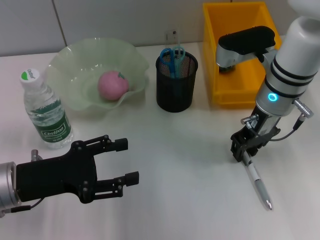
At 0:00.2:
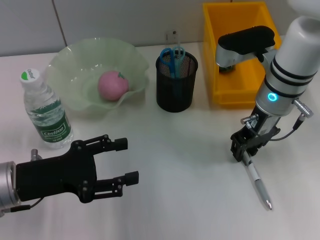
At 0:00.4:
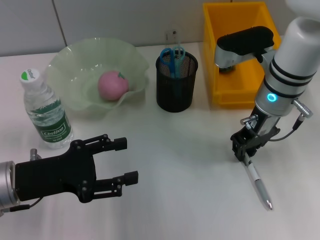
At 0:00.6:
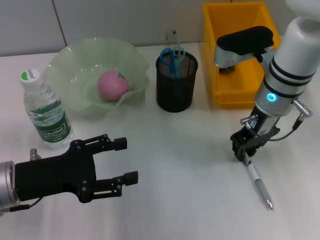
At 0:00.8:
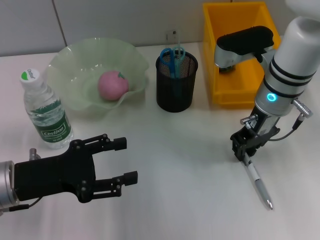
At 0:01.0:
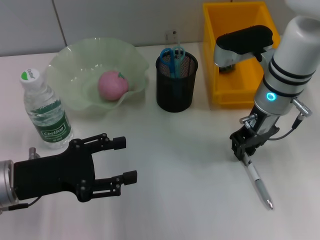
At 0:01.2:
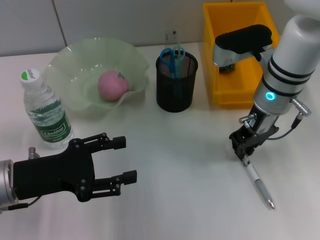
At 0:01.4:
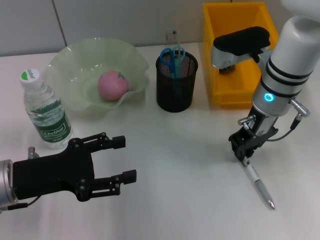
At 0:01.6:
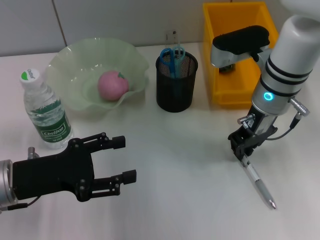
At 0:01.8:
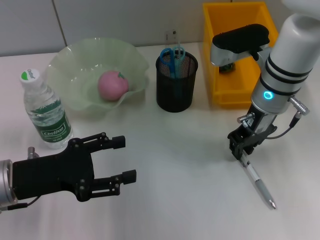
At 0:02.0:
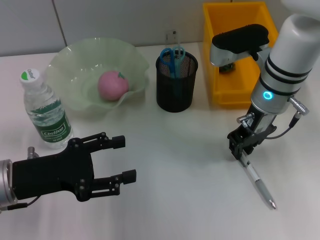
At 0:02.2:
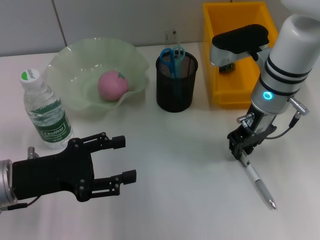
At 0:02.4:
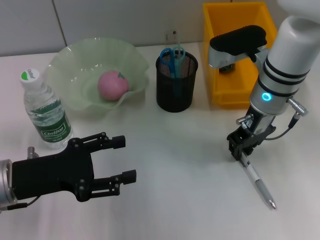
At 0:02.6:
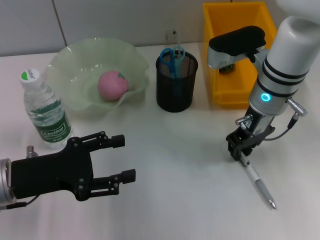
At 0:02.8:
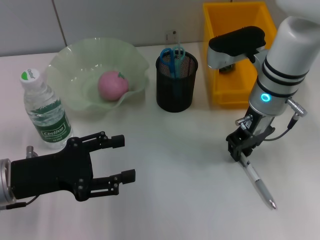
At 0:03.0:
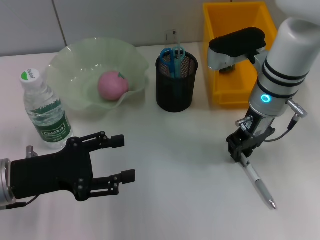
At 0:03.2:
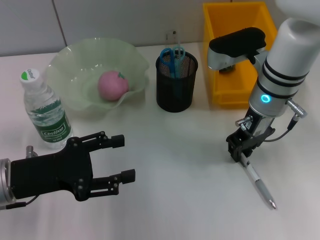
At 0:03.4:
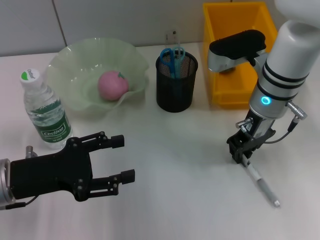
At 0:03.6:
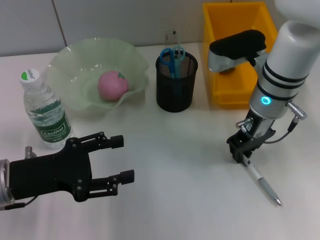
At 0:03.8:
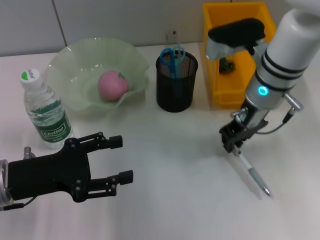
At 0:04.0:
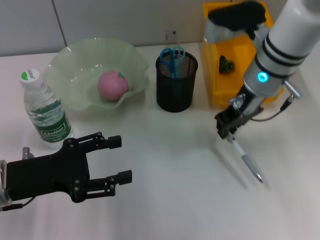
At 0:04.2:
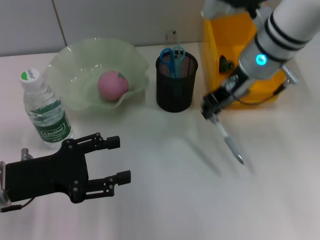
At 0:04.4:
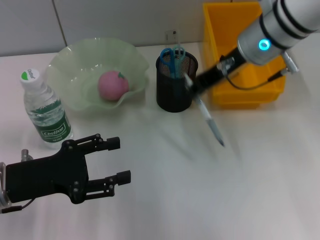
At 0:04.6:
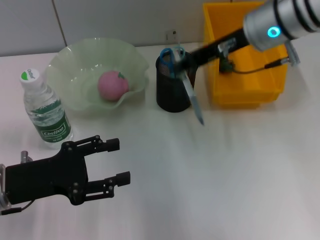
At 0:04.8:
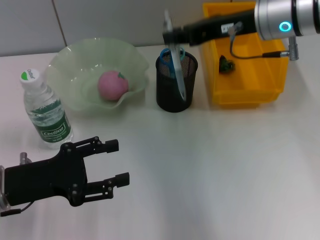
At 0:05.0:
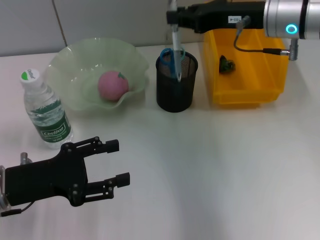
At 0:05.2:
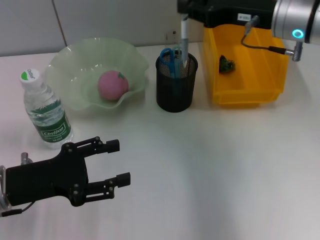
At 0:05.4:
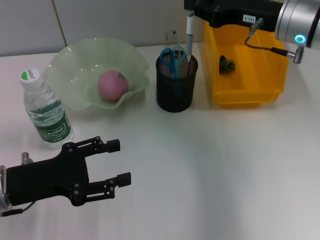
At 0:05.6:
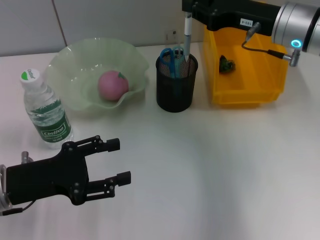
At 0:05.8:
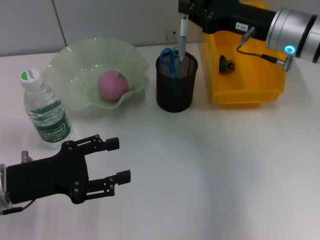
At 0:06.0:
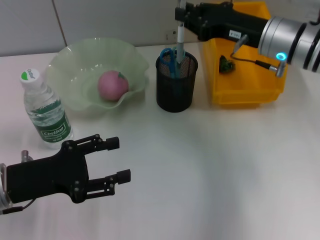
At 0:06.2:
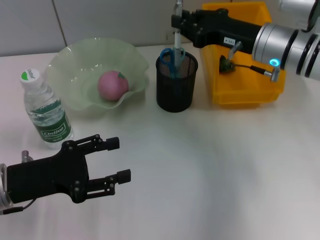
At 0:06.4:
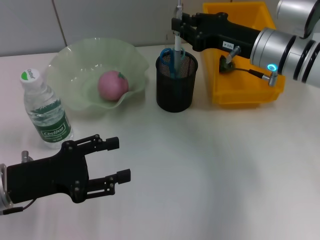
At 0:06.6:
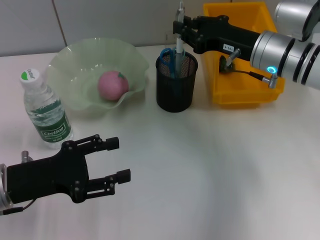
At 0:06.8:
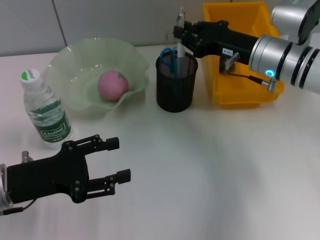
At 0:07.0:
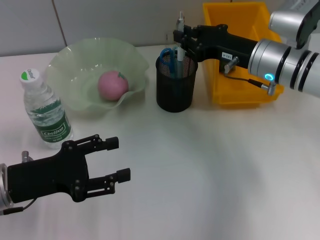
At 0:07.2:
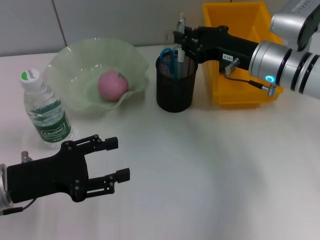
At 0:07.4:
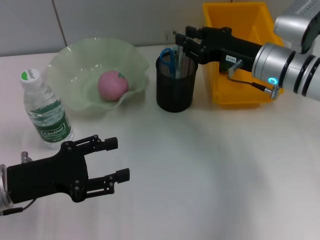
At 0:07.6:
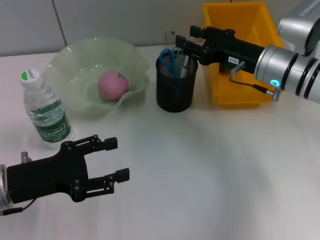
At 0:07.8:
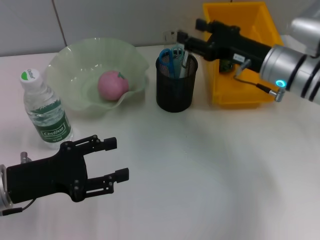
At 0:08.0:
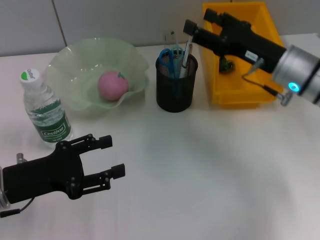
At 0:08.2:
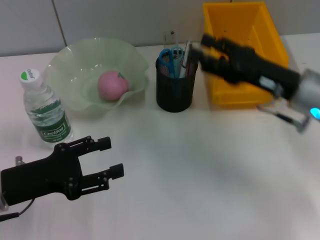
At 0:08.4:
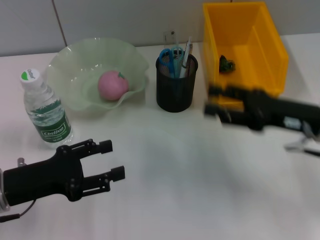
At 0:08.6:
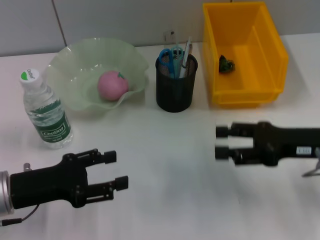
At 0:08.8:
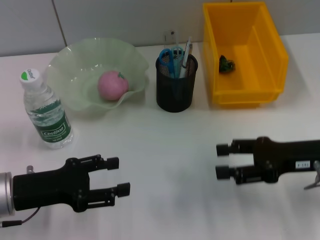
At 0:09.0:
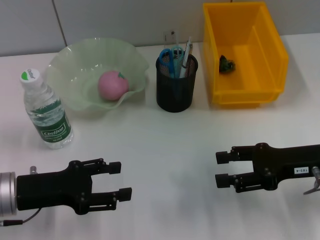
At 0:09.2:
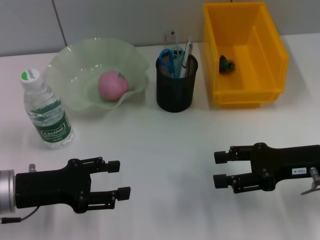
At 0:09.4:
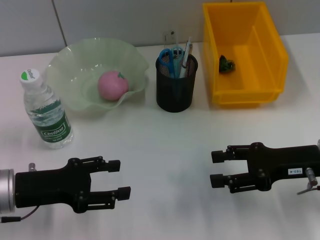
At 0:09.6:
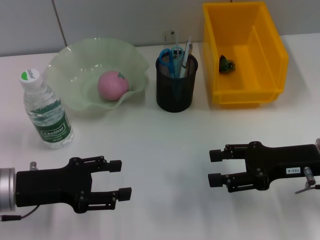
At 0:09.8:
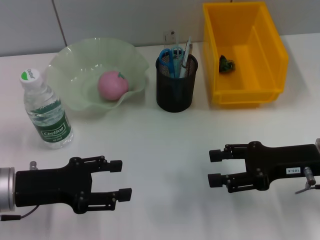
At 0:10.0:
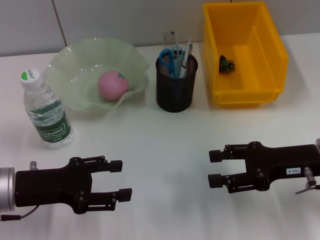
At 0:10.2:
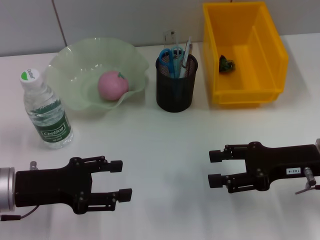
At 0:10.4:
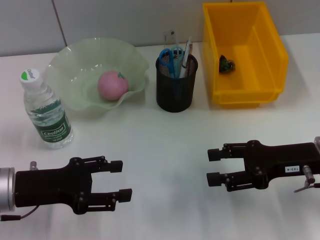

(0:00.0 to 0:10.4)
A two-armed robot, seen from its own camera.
Step, 0:00.0 - 0:03.2: Grab the gray spring-action pen with the right hand.
Step, 0:03.6 - 0:08.0: Place the gray spring-action pen into the pen holder with the right hand.
0:00.0 - 0:03.0: Both grippers stay about where they are.
0:03.0 - 0:04.4: The right gripper is displaced upward by roughly 10 cm.
0:04.4 - 0:06.0: The right gripper shifts some 10 cm downward and to the right.
0:06.0 - 0:07.4: There are only small adjustments of the grippers.
0:07.4 - 0:09.0: The right gripper heads backward and to the right, covering some 15 cm, and opens its fingers.
0:09.0 - 0:10.4: The two grippers keep their place.

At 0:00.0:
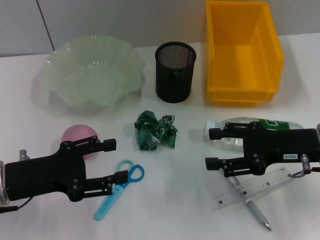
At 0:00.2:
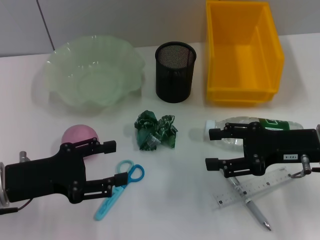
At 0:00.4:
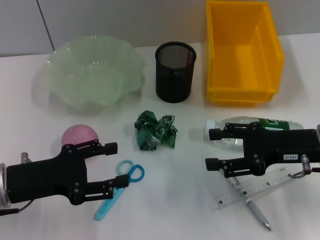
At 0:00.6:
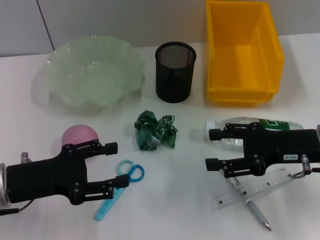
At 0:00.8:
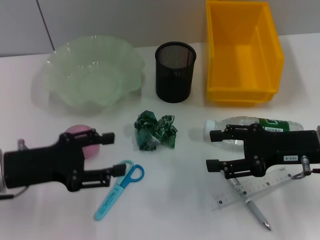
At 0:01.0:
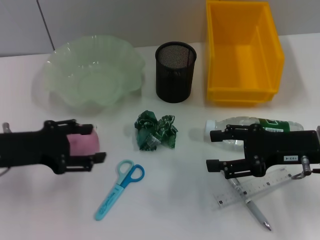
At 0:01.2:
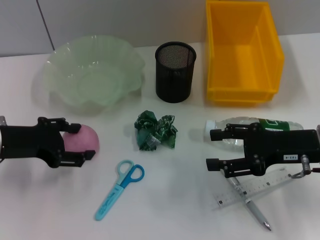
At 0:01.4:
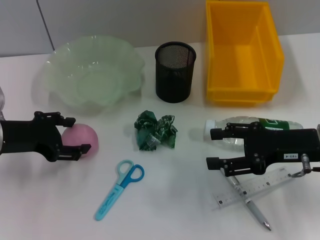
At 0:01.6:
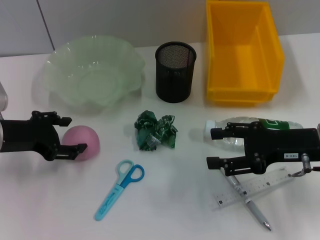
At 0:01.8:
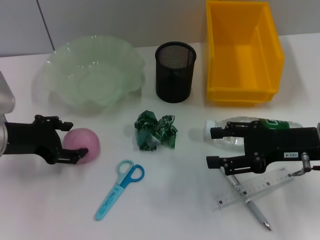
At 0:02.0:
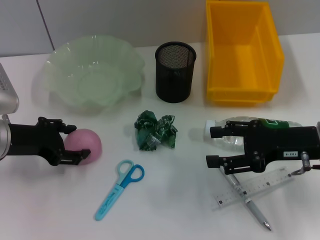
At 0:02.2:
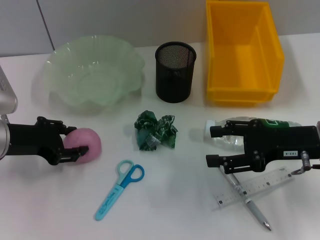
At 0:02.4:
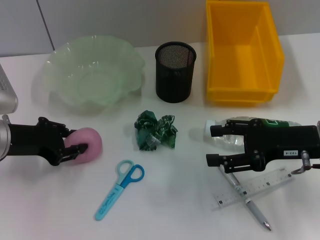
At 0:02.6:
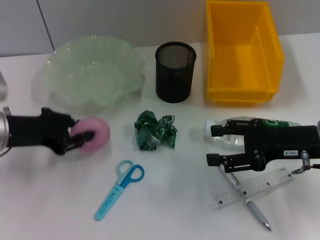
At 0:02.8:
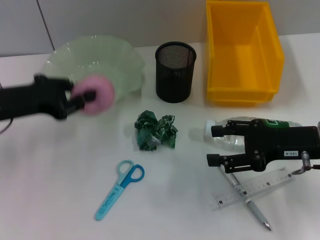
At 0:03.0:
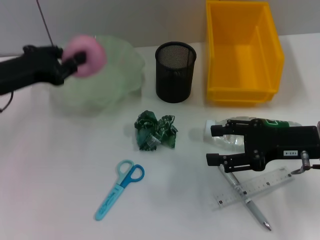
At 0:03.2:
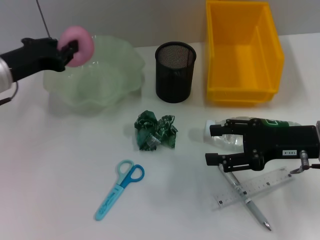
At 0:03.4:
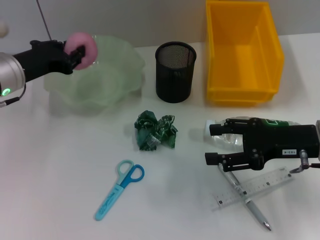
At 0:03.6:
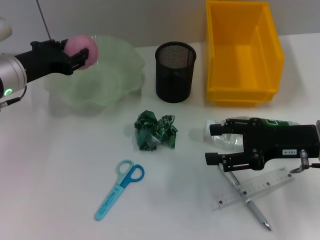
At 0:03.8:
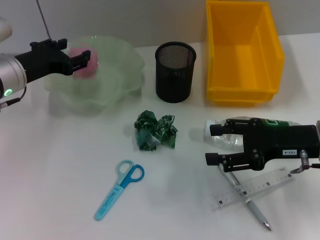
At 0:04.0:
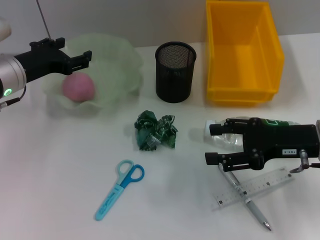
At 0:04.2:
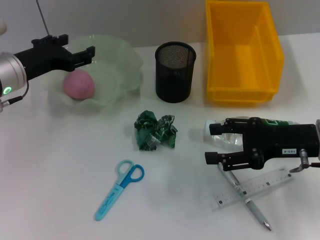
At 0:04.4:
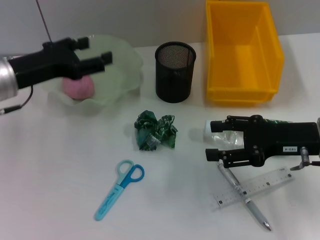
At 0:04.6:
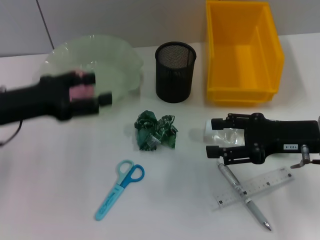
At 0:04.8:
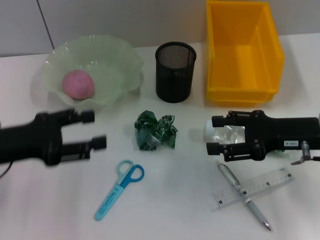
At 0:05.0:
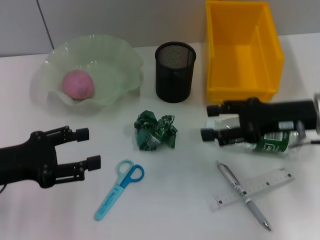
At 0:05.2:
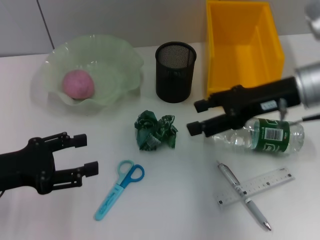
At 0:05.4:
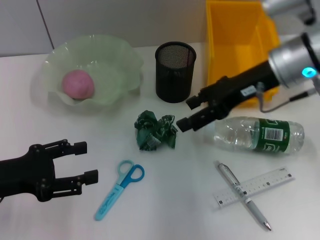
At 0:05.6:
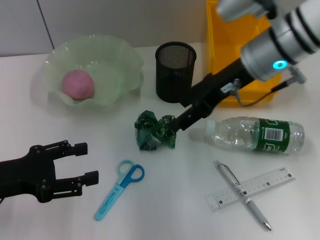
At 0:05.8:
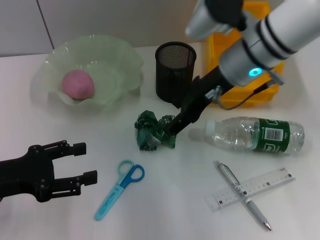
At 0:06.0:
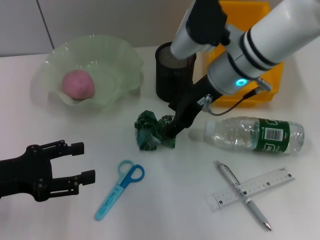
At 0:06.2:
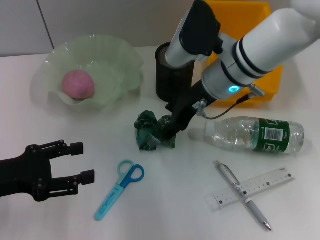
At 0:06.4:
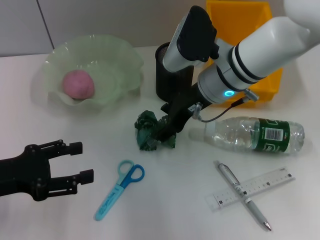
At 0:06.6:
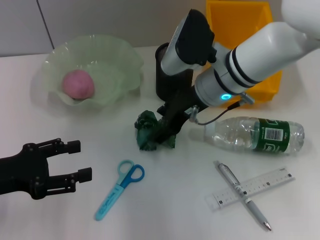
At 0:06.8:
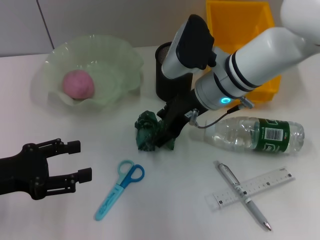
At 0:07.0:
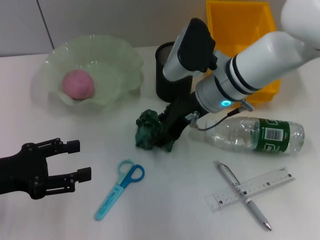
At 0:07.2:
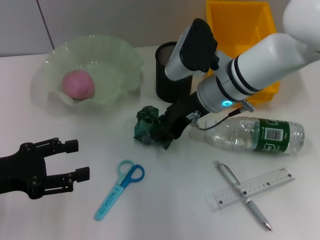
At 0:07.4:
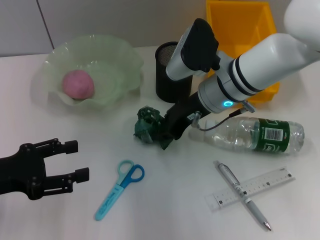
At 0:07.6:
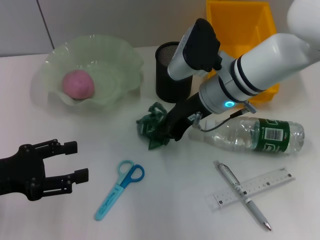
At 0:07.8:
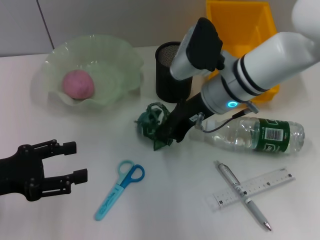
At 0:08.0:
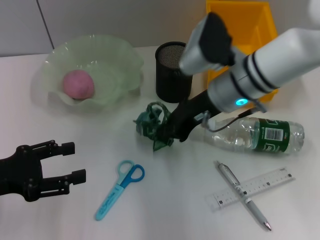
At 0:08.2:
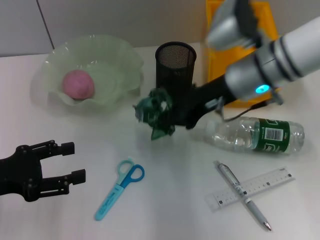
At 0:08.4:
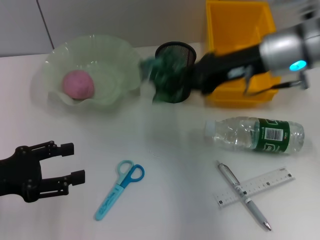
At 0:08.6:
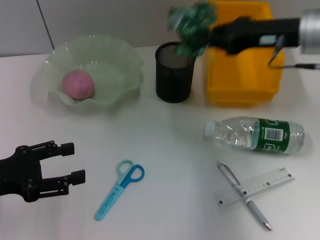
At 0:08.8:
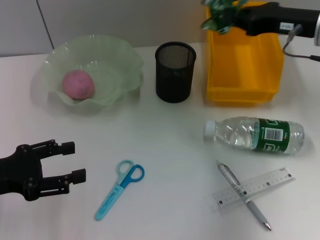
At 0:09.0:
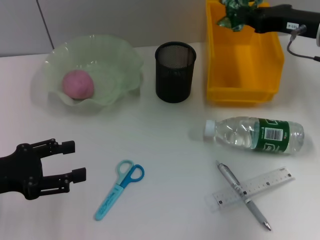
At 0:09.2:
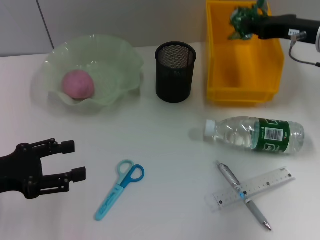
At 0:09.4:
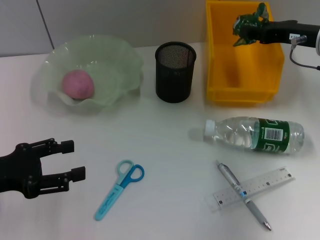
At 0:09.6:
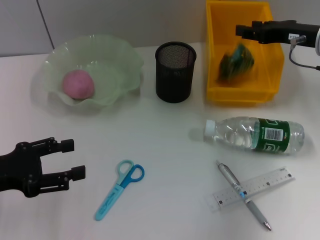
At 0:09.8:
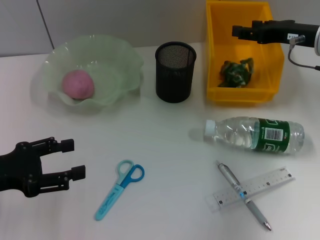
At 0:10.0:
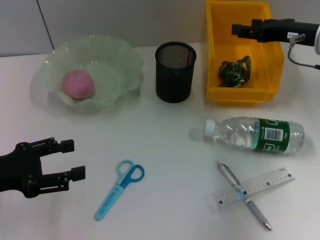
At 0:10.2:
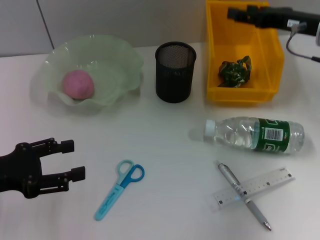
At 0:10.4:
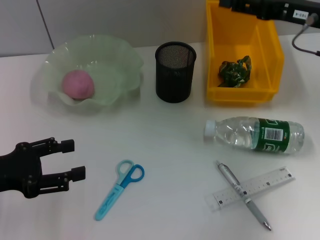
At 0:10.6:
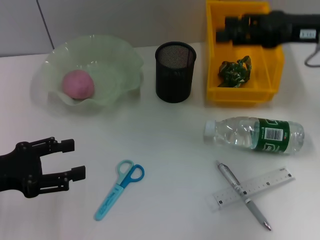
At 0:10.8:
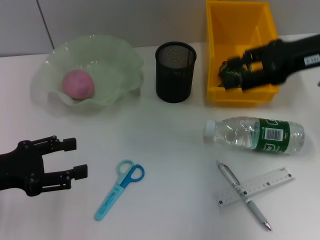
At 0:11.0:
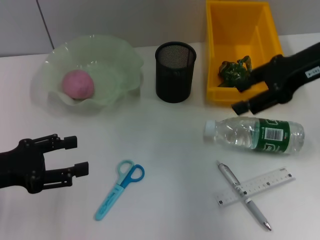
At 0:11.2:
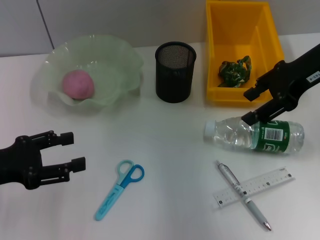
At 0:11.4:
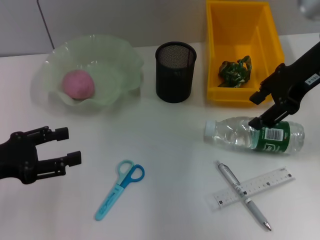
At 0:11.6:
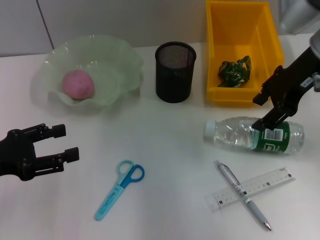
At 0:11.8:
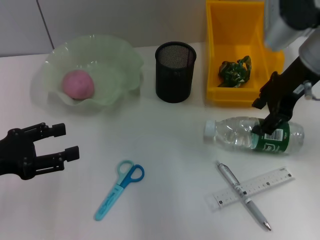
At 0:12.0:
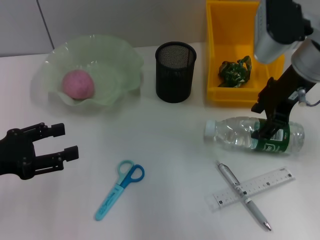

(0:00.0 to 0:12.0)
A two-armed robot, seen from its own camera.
Step, 0:00.0 - 0:02.4: Grab the peach with the left hand.
Step, 0:02.6 - 0:04.4: Place the peach into the fruit bowl with the left hand.
Step, 0:04.6 - 0:07.6: Grab the plastic with the right hand.
Step, 0:07.8 - 0:10.0: Place the plastic into the trash can with the right hand.
0:00.0 - 0:01.6: The left gripper travels forward by some 5 cm.
0:01.6 - 0:03.0: The left gripper closes up.
0:03.0 - 0:04.4: The left gripper opens up.
0:04.4 - 0:06.0: The right gripper heads to the left, forward and upward, covering roughly 20 cm, while the left gripper heads backward and to the left, covering some 10 cm.
0:06.0 - 0:07.6: The right gripper closes.
0:07.6 - 0:09.0: The right gripper is displaced to the right by about 15 cm, and closes up.
0:09.0 - 0:10.4: The right gripper opens its fingers.
0:10.4 - 0:12.0: The right gripper shifts some 5 cm to the left.
